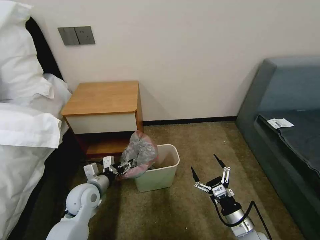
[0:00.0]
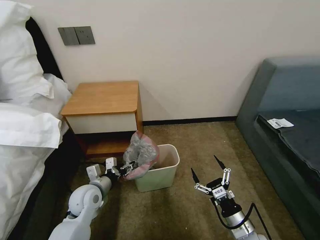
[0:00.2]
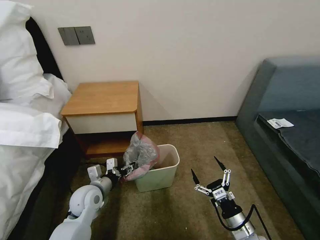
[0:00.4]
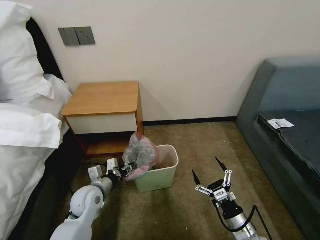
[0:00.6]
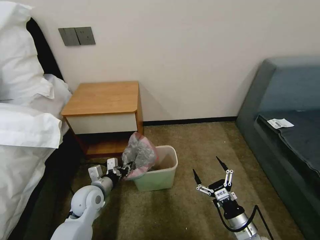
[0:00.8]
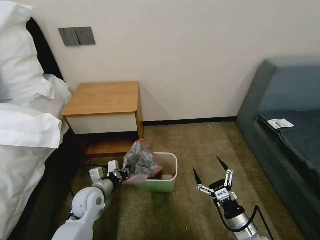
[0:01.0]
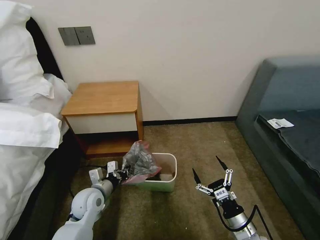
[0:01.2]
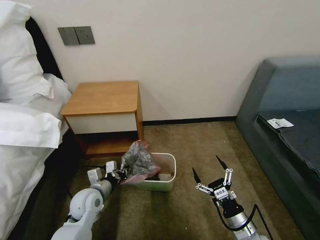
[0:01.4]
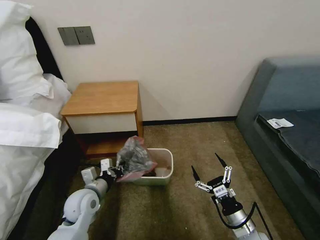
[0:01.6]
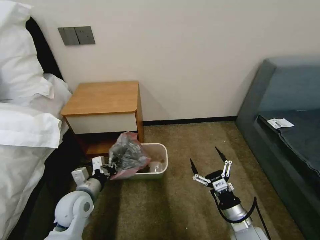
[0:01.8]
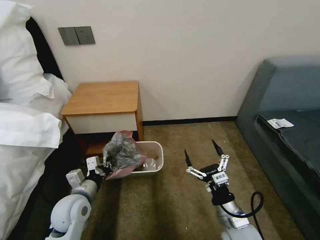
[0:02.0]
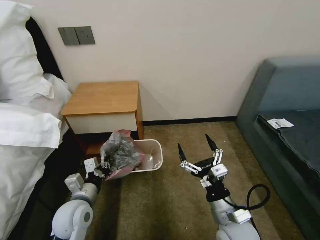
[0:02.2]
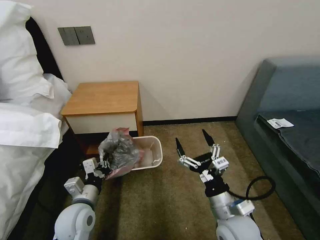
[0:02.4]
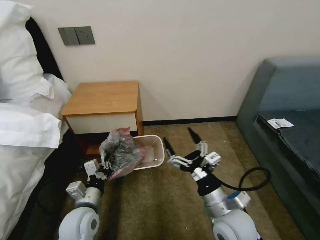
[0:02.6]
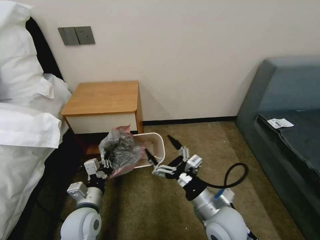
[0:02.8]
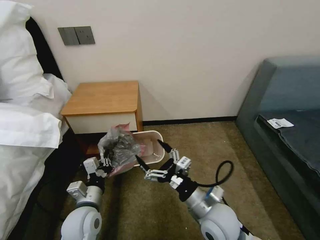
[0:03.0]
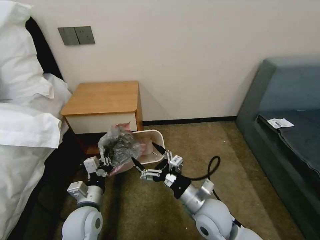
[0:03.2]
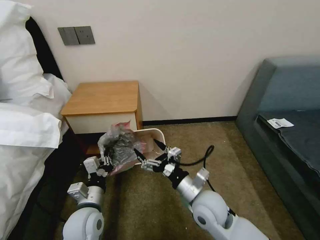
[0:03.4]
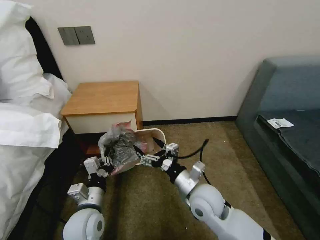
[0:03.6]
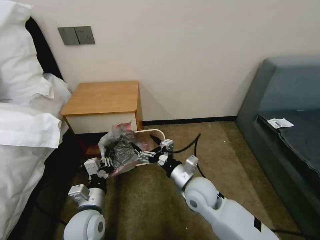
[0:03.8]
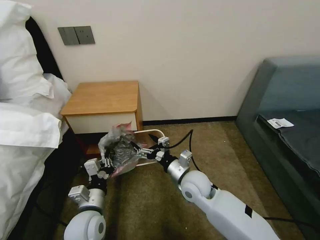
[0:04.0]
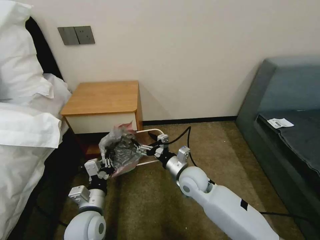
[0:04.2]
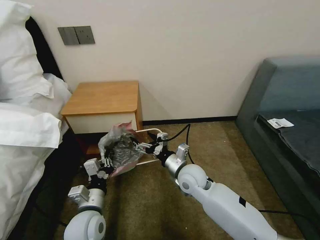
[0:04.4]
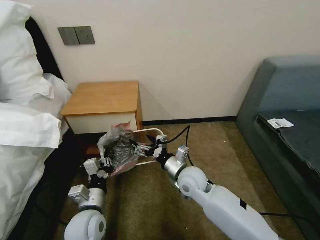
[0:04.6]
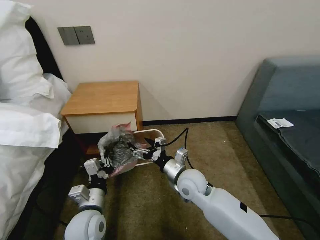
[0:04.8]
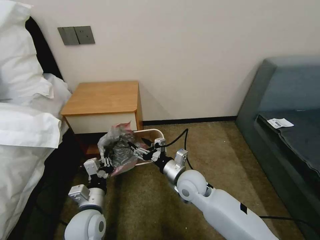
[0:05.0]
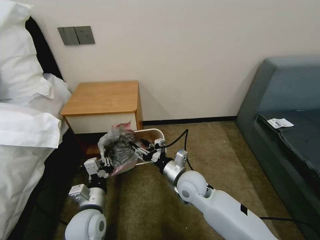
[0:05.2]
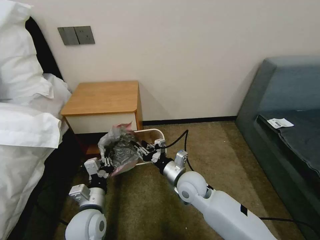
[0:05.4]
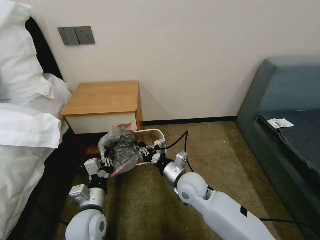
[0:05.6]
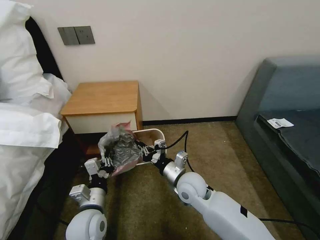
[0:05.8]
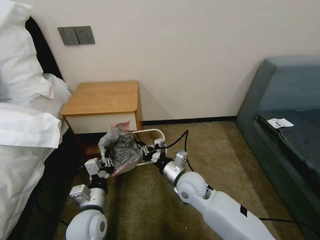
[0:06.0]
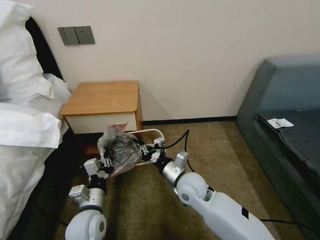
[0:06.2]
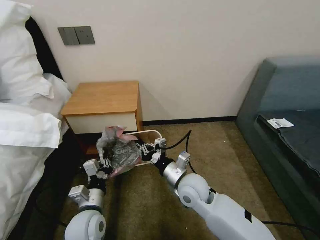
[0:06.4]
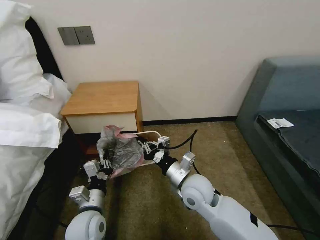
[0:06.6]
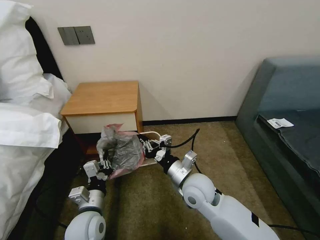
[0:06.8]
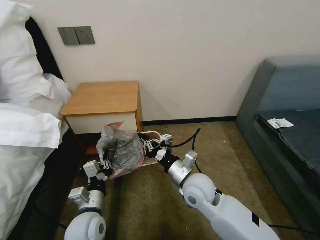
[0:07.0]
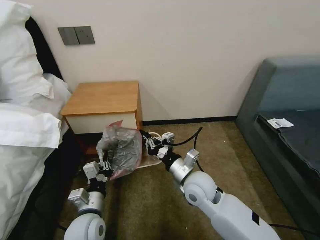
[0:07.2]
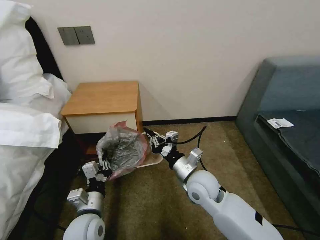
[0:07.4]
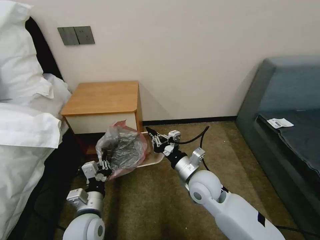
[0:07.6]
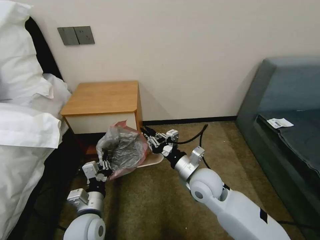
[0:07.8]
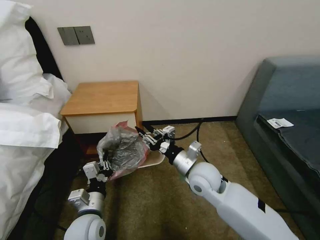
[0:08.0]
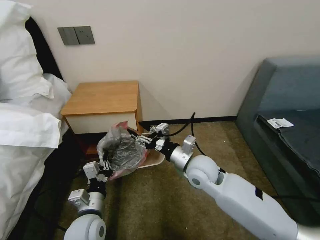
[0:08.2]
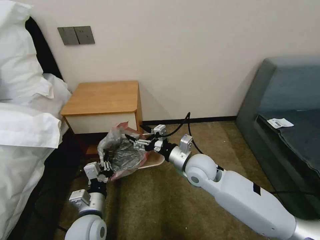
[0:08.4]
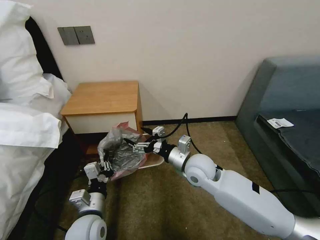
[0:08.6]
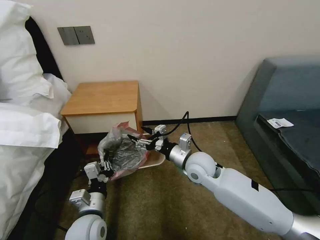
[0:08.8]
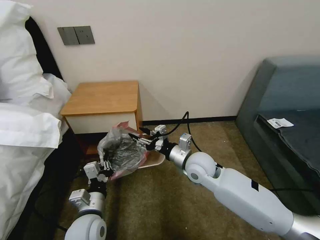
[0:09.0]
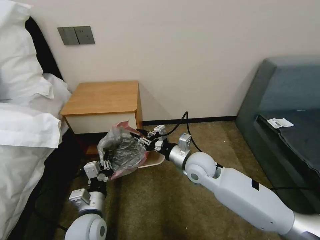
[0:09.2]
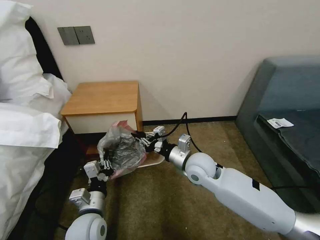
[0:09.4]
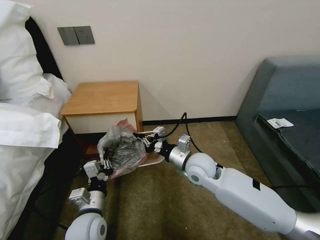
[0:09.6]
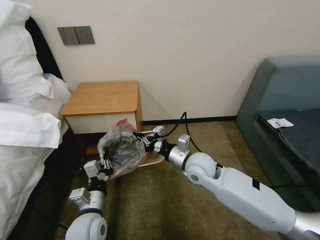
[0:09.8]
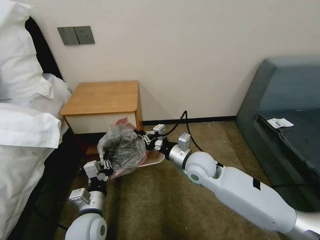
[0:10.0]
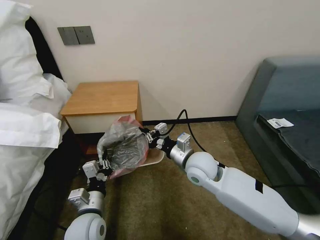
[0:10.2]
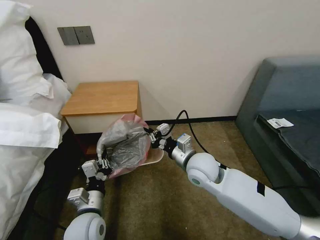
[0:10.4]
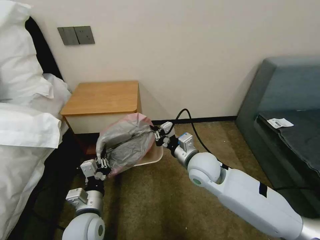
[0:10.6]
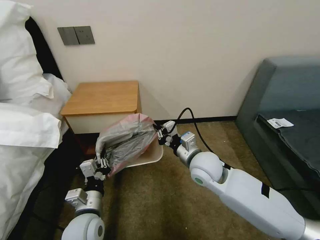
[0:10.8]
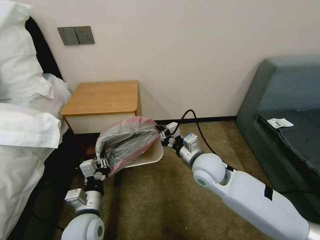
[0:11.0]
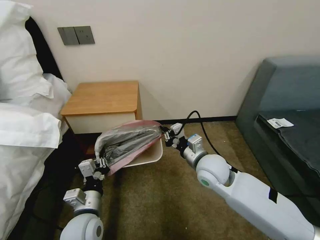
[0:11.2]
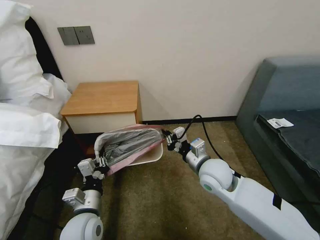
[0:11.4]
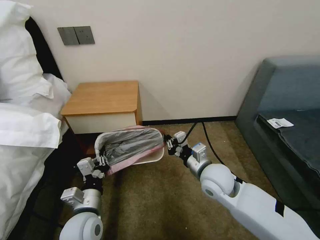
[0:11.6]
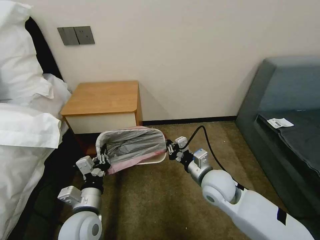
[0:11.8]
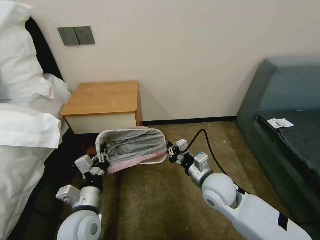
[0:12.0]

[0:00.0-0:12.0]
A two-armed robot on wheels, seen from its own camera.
Task of the whole recording: Pick up the garbage bag from the table and place it over the trash can.
0:00.0 to 0:01.6: The left gripper closes up.
0:01.6 to 0:03.0: The right gripper shifts about 15 cm to the left and upward. The left gripper shifts approximately 5 cm backward.
0:03.0 to 0:04.4: The right gripper shifts approximately 15 cm forward.
0:04.4 to 0:06.0: The right gripper closes its fingers.
0:06.0 to 0:07.6: The grippers stay close to where they were, moving slightly.
0:07.6 to 0:09.0: The right gripper is displaced forward by approximately 5 cm, and opens its fingers.
0:09.0 to 0:10.4: The right gripper closes its fingers.
0:10.4 to 0:12.0: The right gripper shifts by some 10 cm.

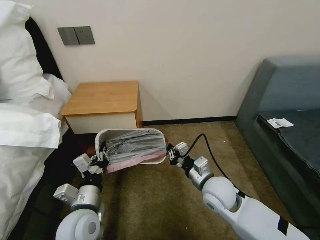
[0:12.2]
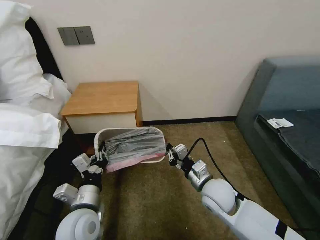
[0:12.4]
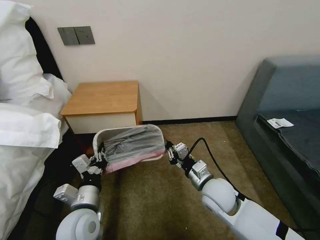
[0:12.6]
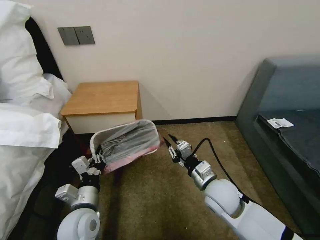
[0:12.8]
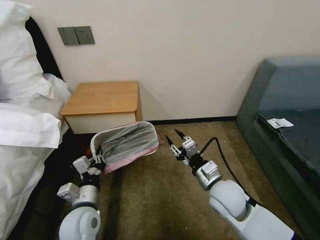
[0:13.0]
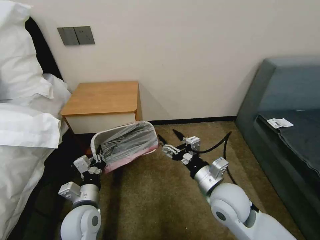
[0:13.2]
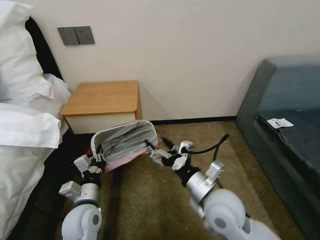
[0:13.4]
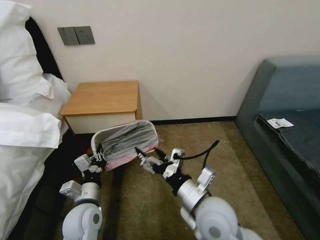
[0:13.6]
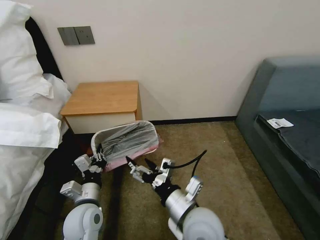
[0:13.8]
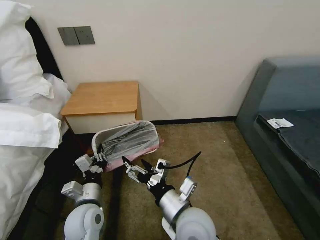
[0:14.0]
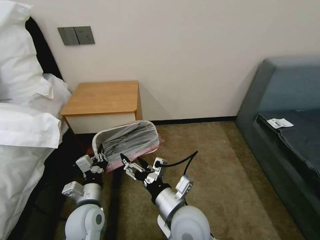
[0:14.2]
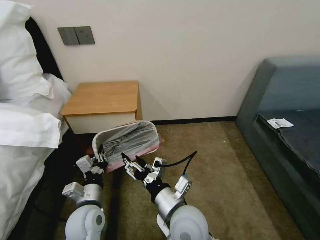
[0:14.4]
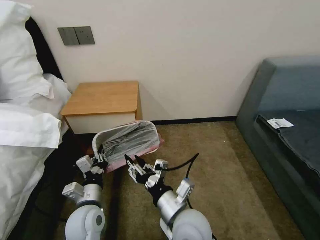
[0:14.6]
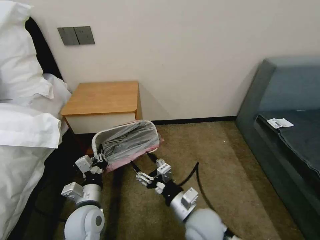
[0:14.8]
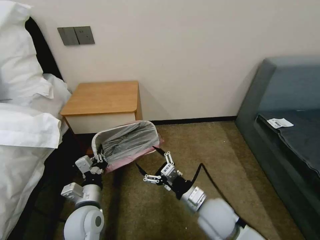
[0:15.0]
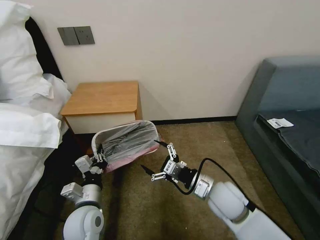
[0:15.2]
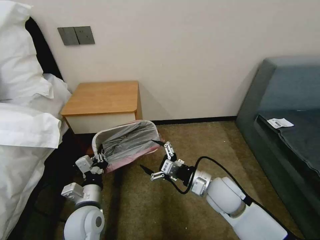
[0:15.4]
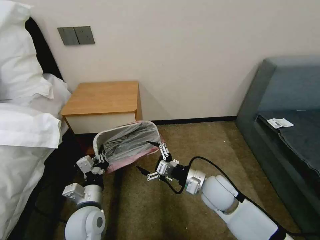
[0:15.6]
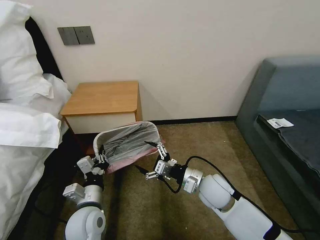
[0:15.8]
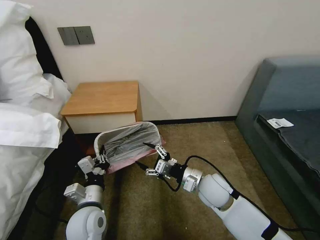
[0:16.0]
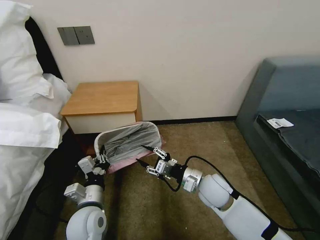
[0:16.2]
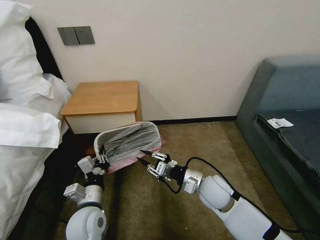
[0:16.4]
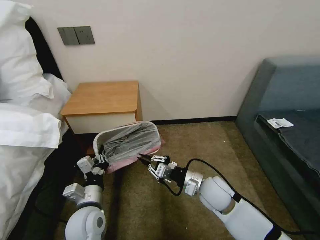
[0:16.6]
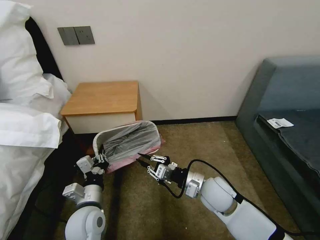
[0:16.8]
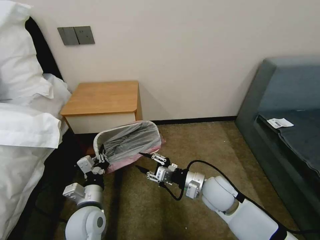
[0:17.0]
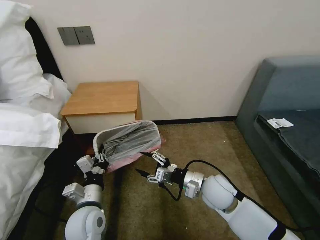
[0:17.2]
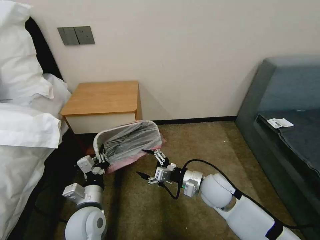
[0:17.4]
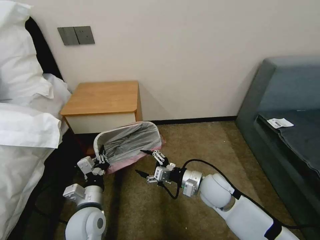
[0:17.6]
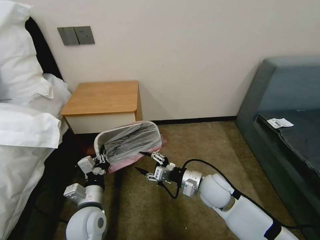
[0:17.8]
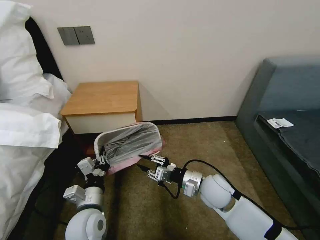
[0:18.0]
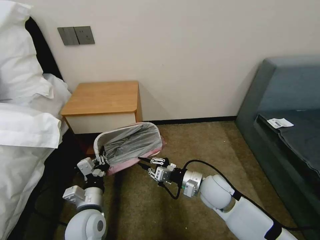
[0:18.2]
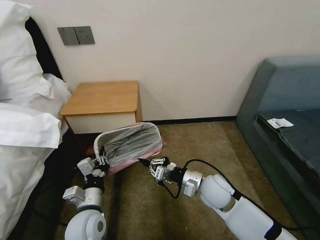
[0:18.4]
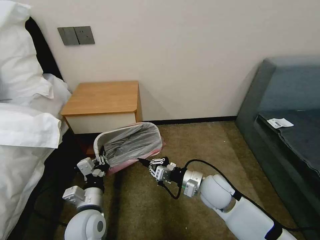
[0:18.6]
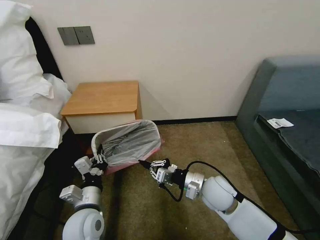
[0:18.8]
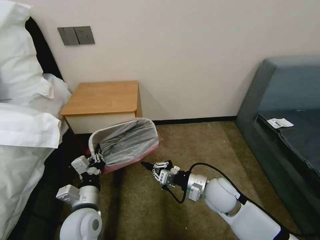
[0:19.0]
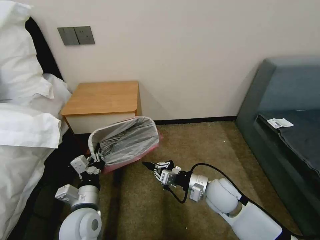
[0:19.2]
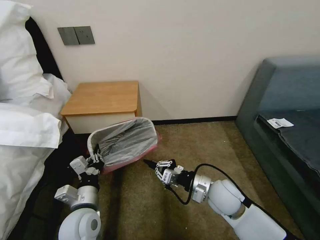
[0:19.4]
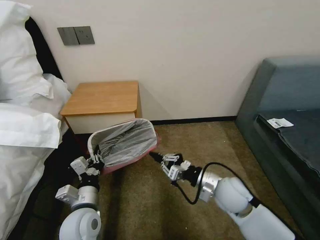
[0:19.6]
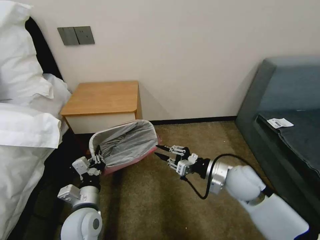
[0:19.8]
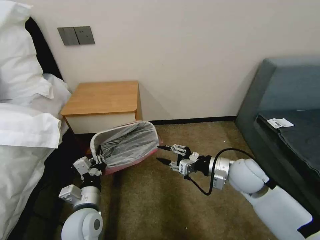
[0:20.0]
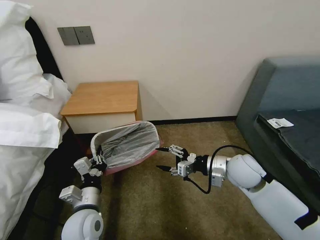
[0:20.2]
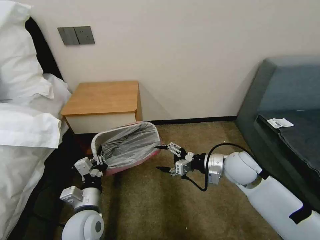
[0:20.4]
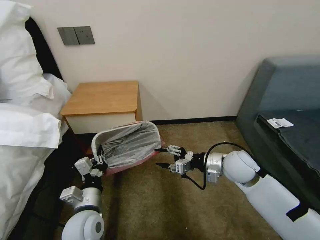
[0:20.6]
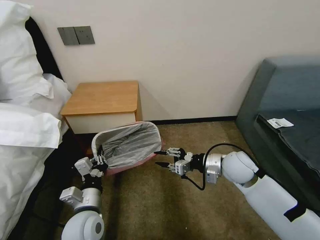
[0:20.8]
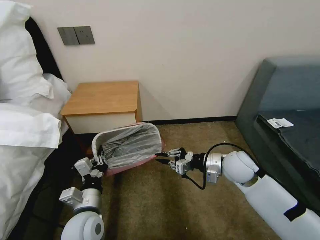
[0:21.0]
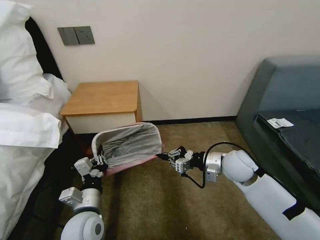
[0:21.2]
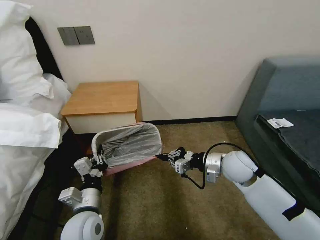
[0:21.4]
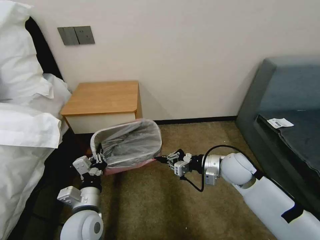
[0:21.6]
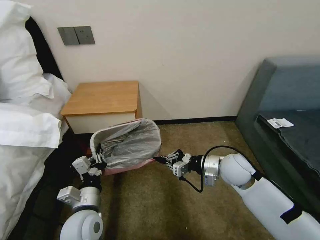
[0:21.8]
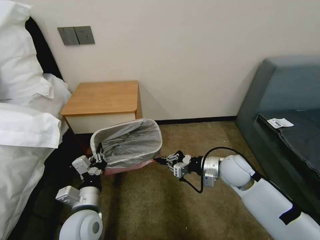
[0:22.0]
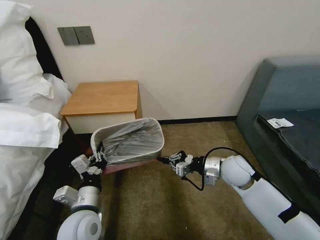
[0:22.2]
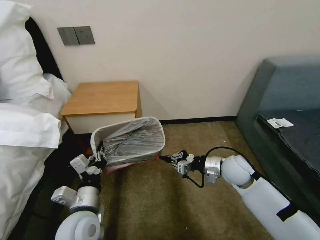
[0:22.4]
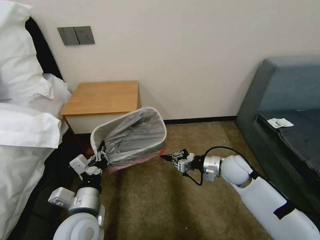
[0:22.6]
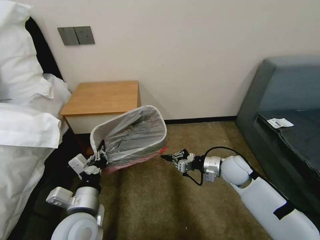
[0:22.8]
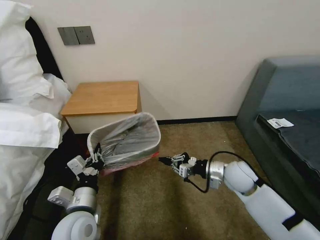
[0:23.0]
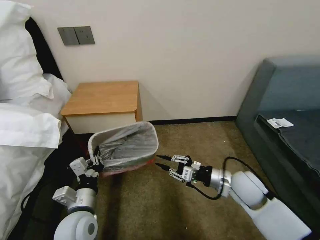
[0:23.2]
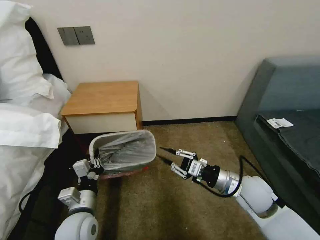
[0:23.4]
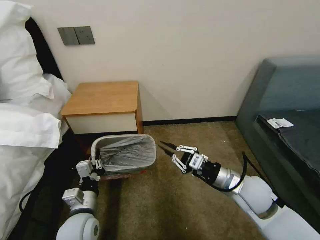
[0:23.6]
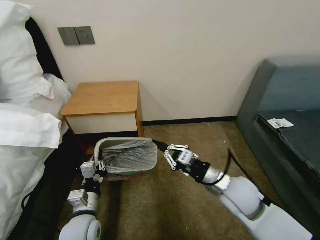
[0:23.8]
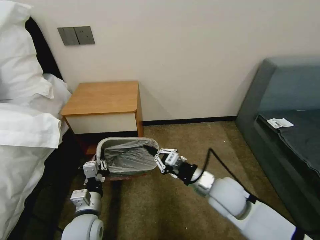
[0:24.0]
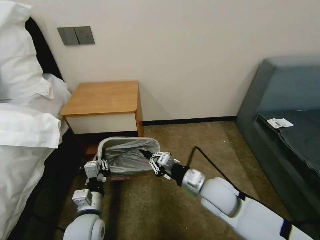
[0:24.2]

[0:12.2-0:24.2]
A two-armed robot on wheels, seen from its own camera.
Task of the whole recording: Pick up the garbage bag from the table and place it over the trash can.
0:12.2 to 0:13.8: The right gripper moves backward and to the left, roughly 15 cm, and opens its fingers.
0:13.8 to 0:15.2: The right gripper shifts about 10 cm to the right and forward, and closes, then reopens.
0:15.2 to 0:16.6: The right gripper closes up.
0:16.6 to 0:18.2: The right gripper opens and closes again.
0:18.2 to 0:19.8: The right gripper heads to the right, covering roughly 5 cm.
0:19.8 to 0:21.2: The right gripper moves forward, roughly 5 cm, and opens and closes again.
0:21.2 to 0:22.6: The grippers make only small movements.
0:22.6 to 0:24.2: The right gripper goes approximately 15 cm to the left and backward. Meanwhile the left gripper shifts approximately 5 cm downward.
